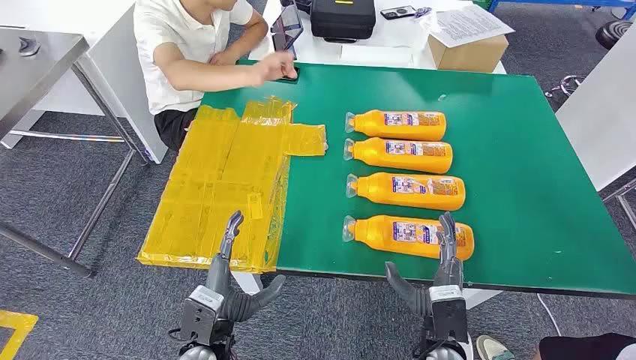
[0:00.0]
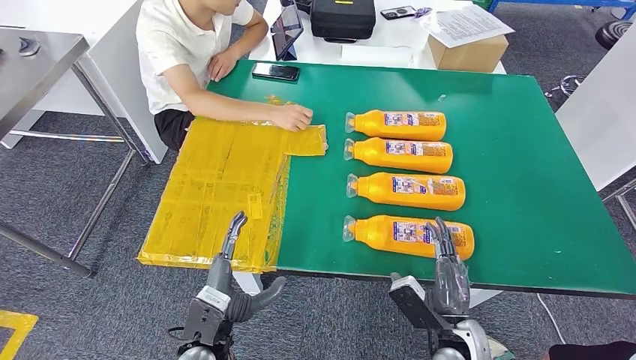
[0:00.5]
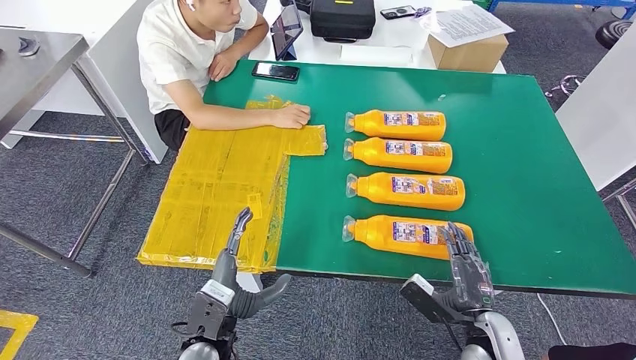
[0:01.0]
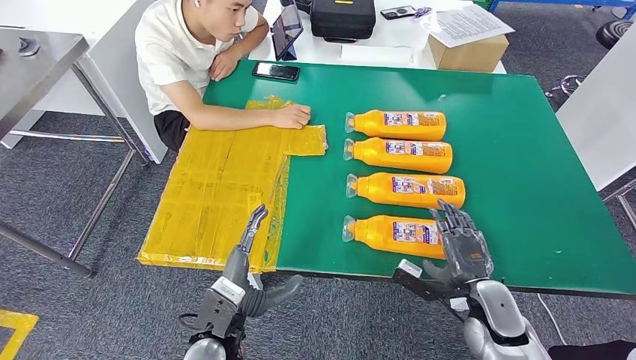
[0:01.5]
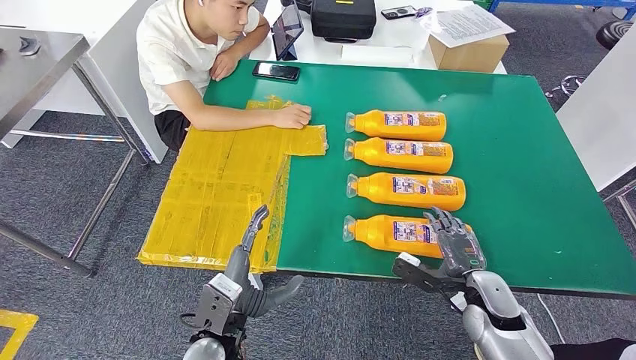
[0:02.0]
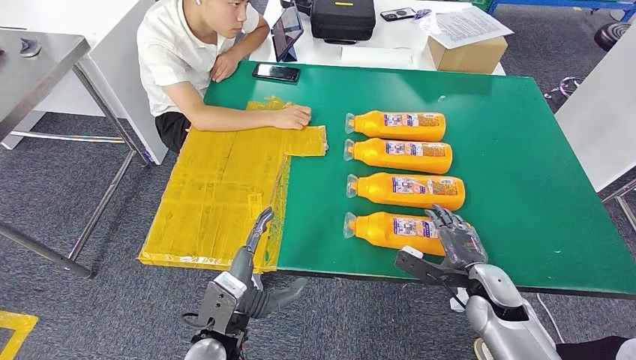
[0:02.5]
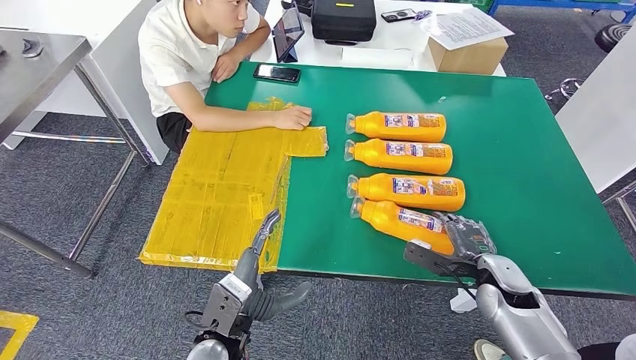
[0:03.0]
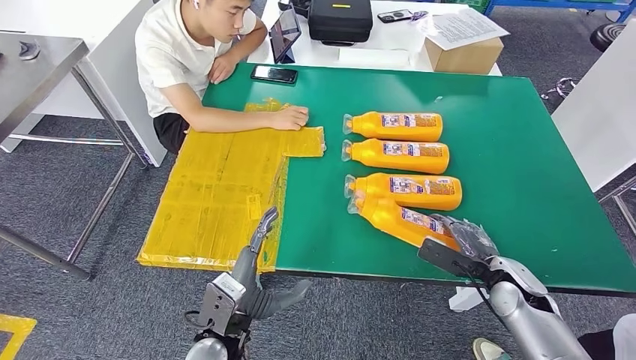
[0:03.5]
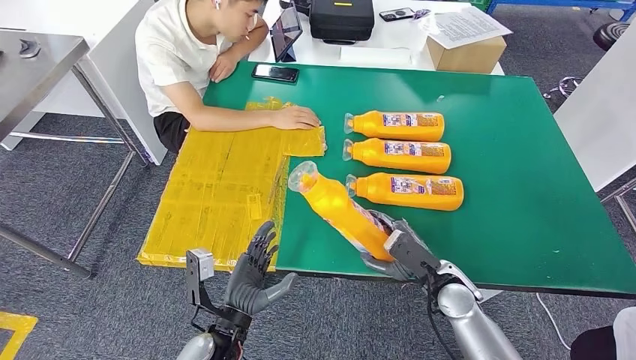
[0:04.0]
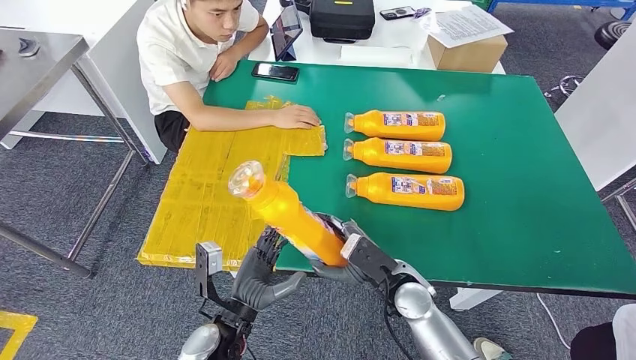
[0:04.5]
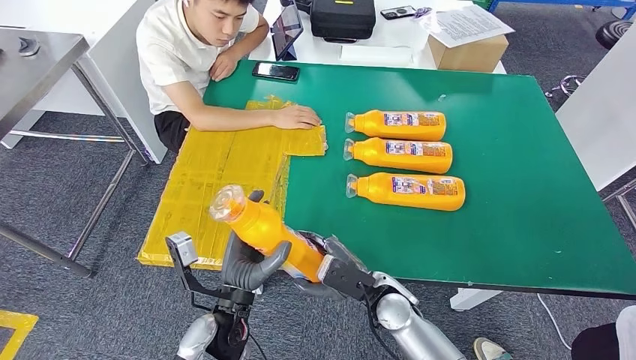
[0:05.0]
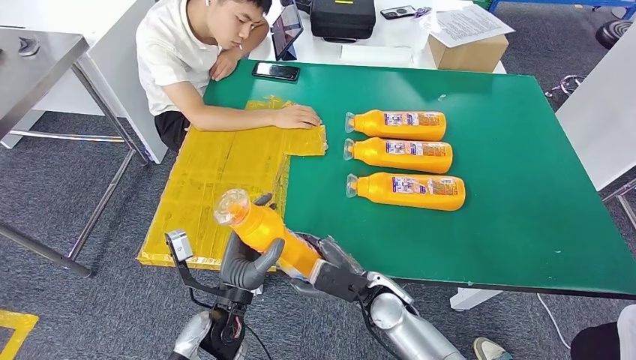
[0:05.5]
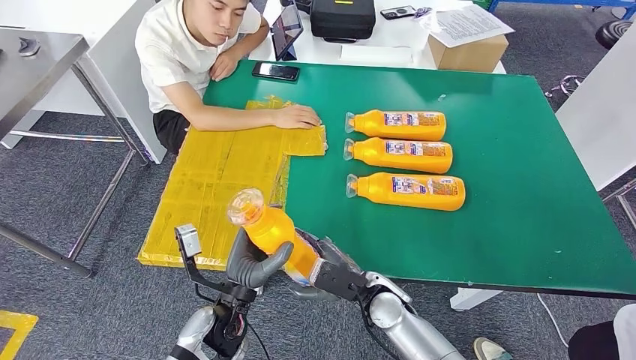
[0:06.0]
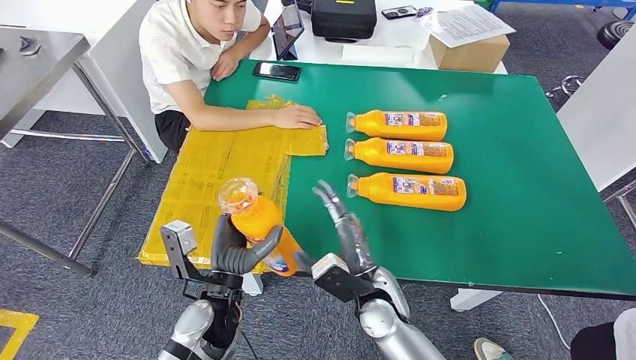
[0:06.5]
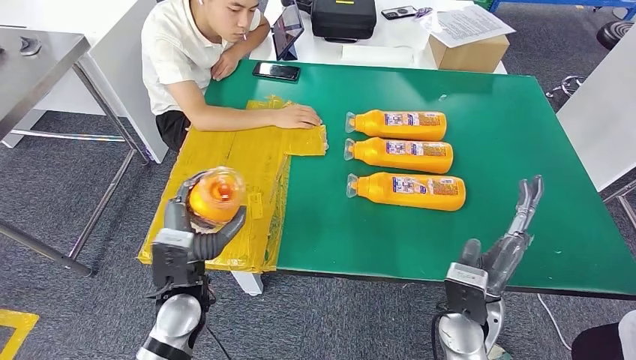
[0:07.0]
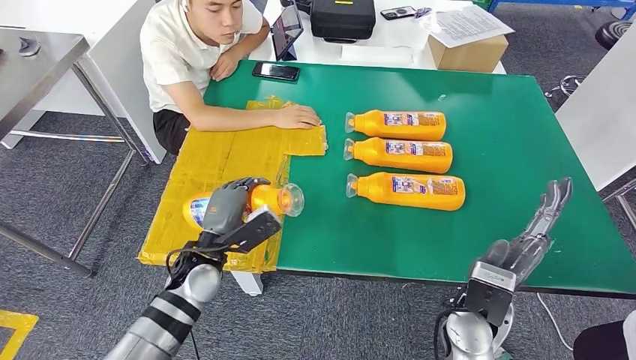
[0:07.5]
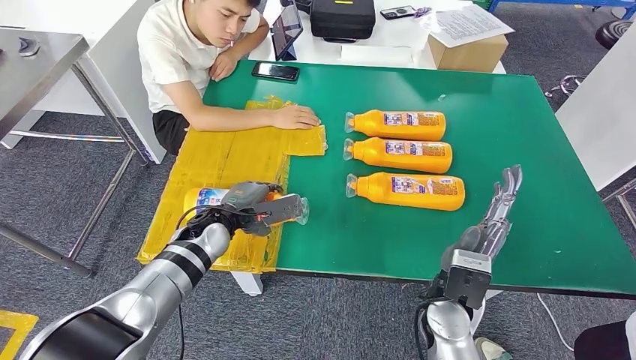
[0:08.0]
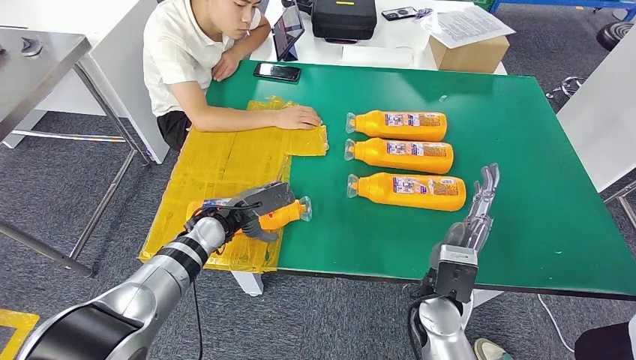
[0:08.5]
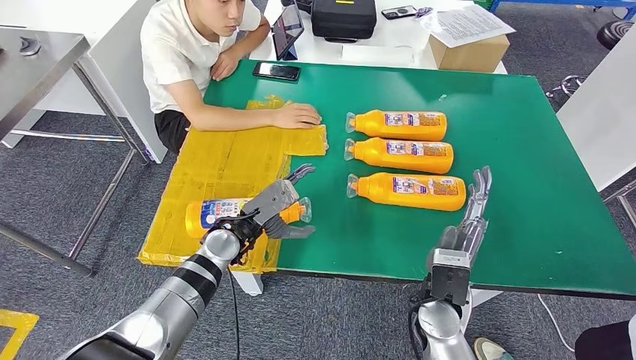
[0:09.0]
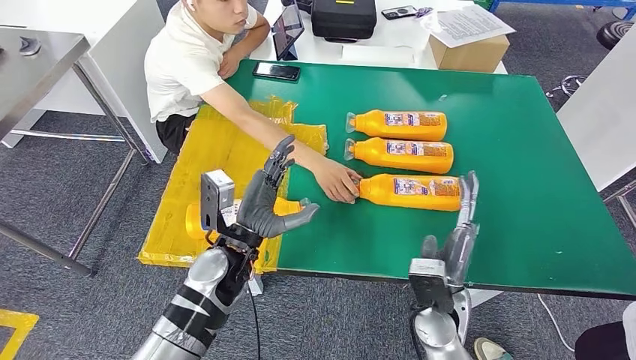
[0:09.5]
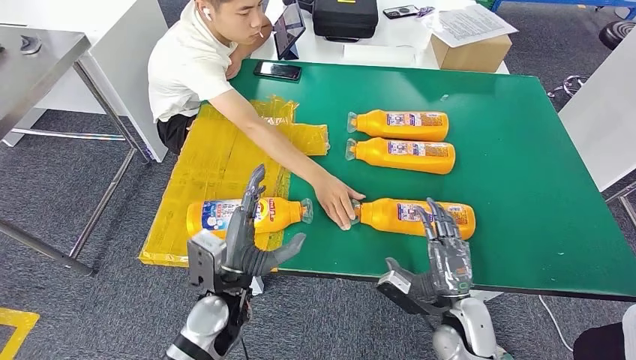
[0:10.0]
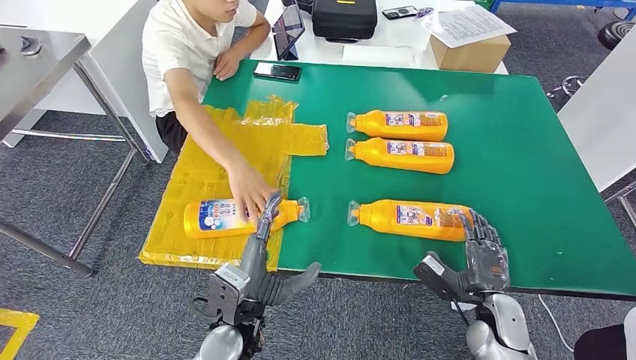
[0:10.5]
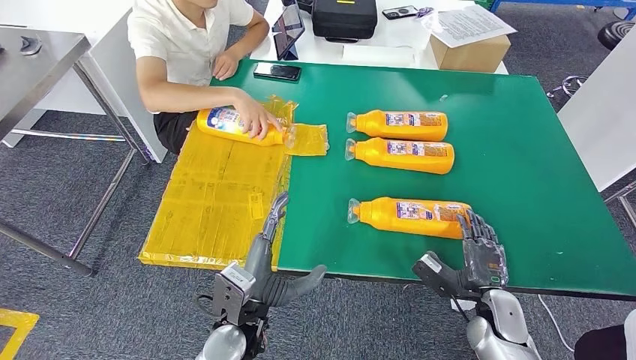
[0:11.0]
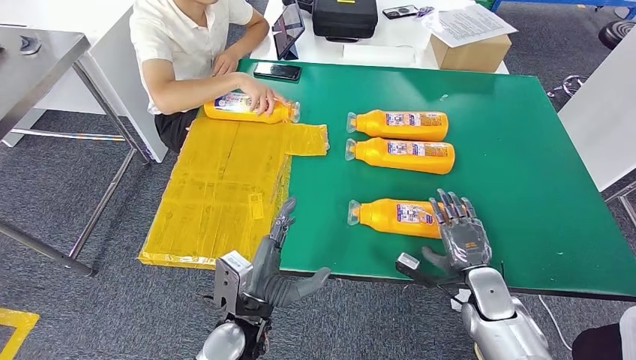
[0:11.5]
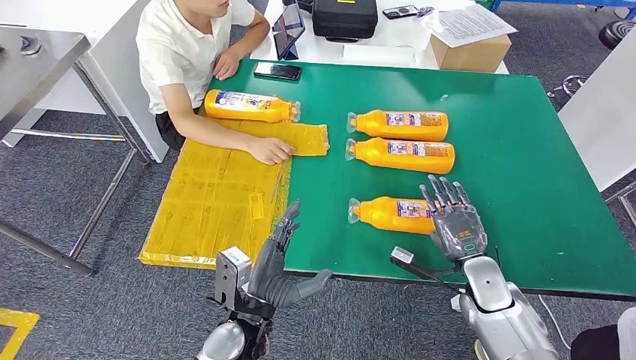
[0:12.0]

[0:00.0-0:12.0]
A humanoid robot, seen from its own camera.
Step, 0:00.0 to 0:05.5: Take the bottle from the table.
Step, 0:06.0 to 0:09.5: Flip the bottle to face forward.
0:02.0 to 0:04.0: The right hand shifts some 5 cm to the left.
0:04.0 to 0:06.0: The right hand goes approximately 15 cm to the left.
0:06.0 to 0:08.0: The right hand shifts approximately 10 cm to the right and upward. The left hand heads forward, covering some 15 cm.

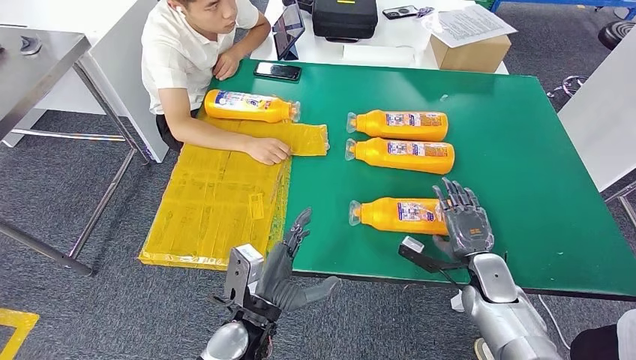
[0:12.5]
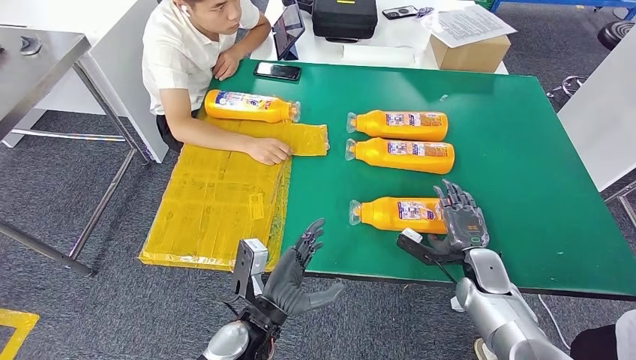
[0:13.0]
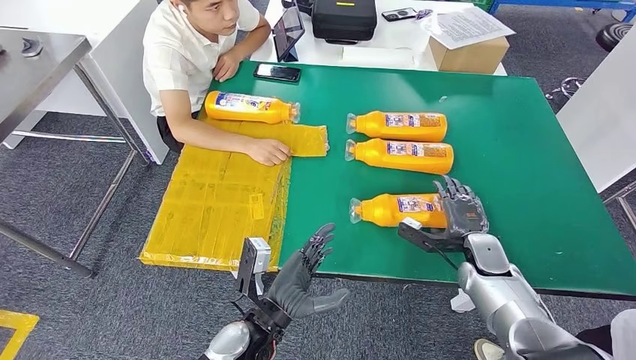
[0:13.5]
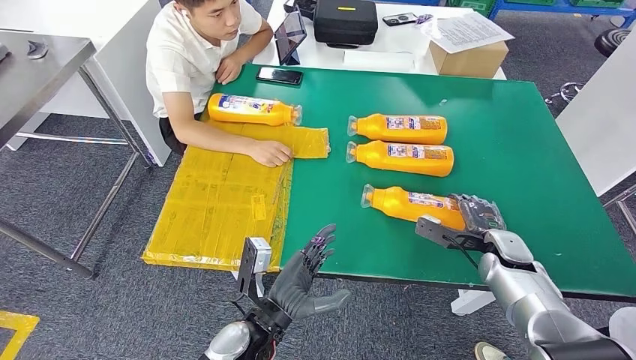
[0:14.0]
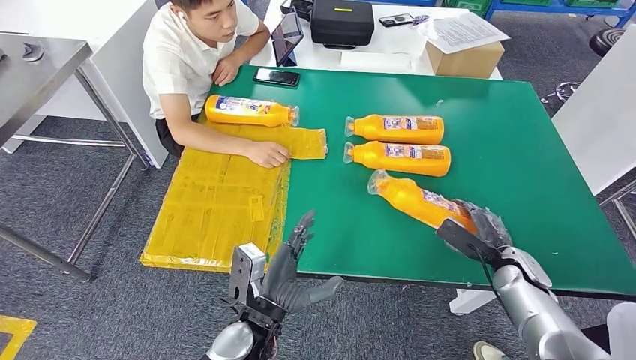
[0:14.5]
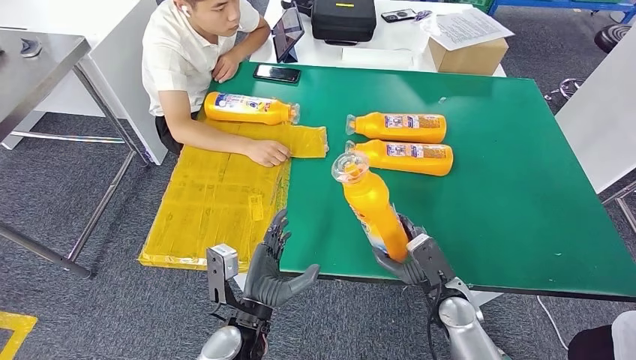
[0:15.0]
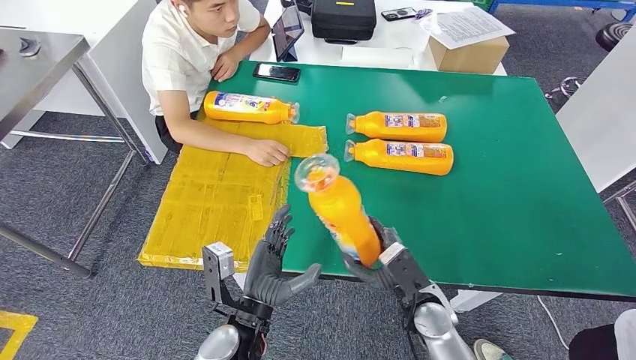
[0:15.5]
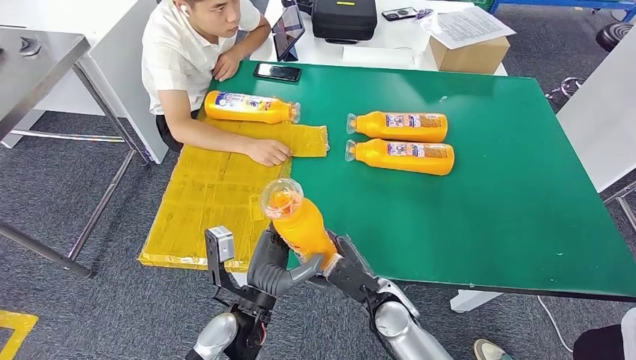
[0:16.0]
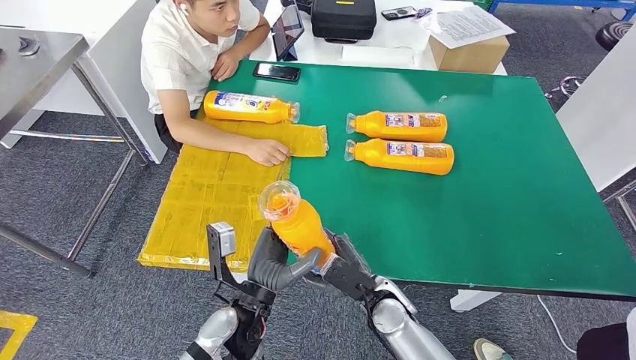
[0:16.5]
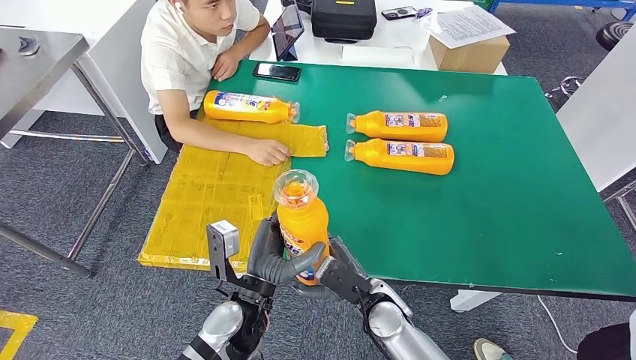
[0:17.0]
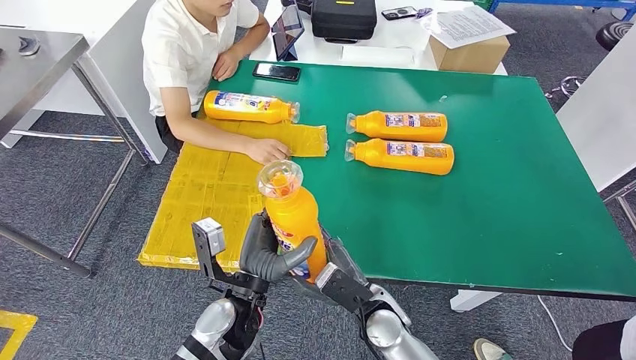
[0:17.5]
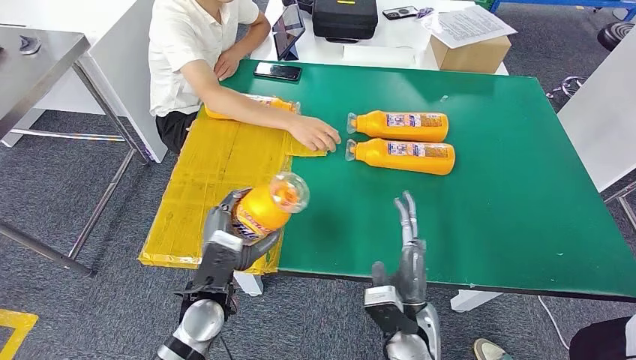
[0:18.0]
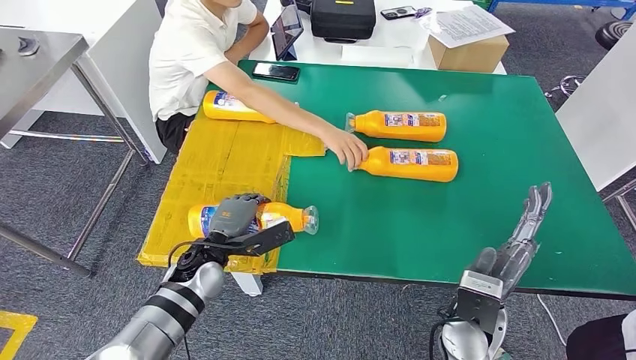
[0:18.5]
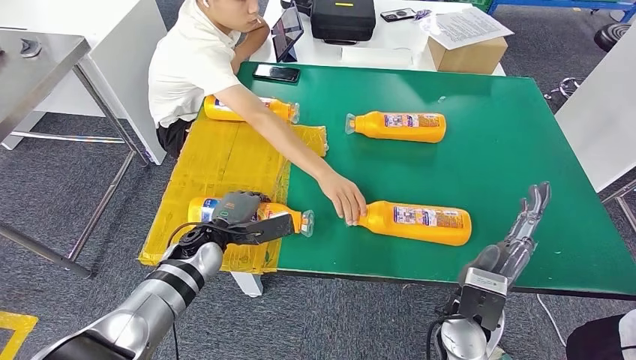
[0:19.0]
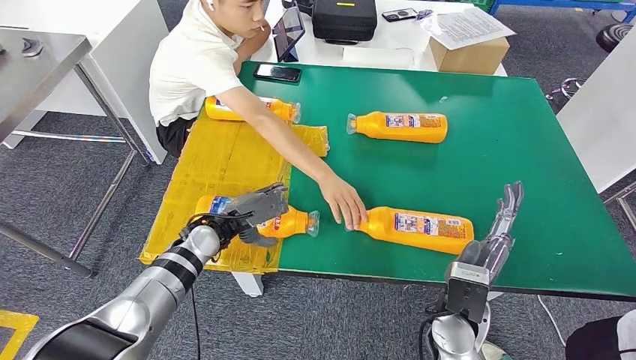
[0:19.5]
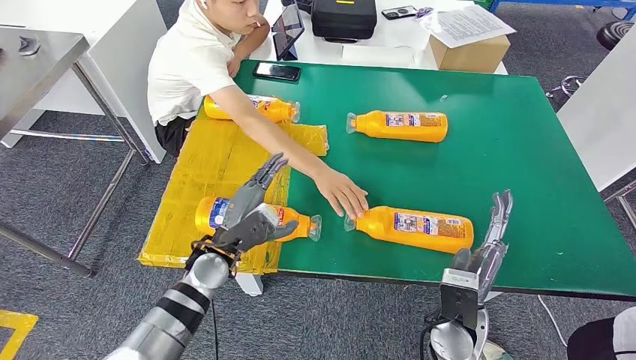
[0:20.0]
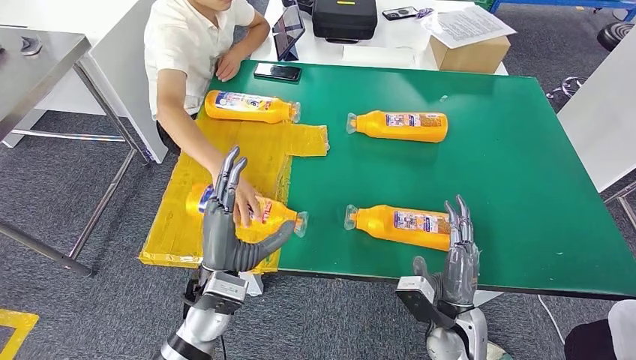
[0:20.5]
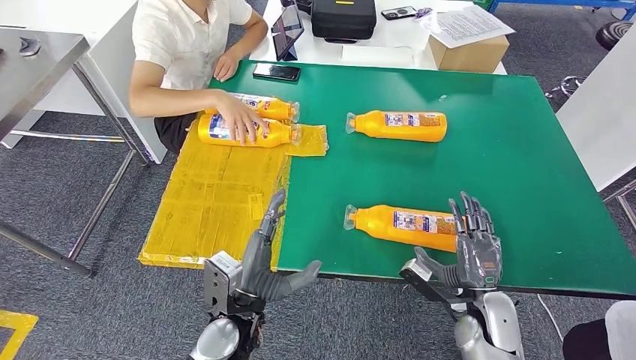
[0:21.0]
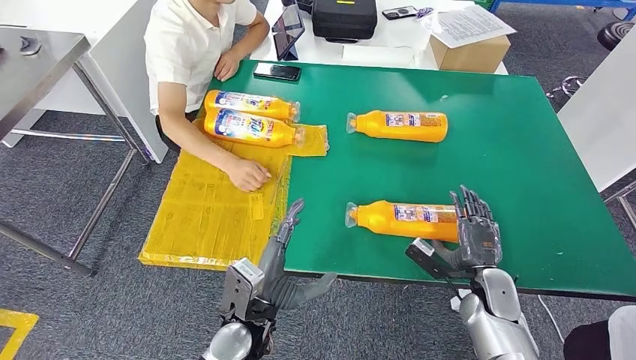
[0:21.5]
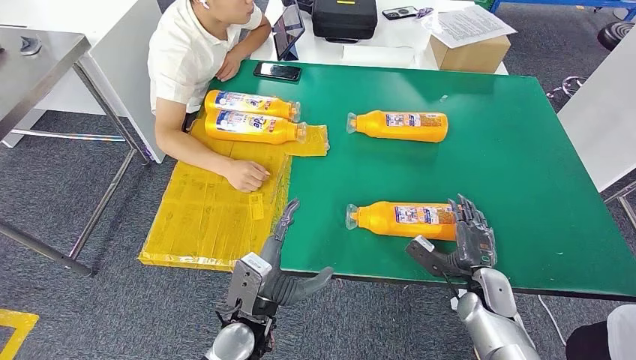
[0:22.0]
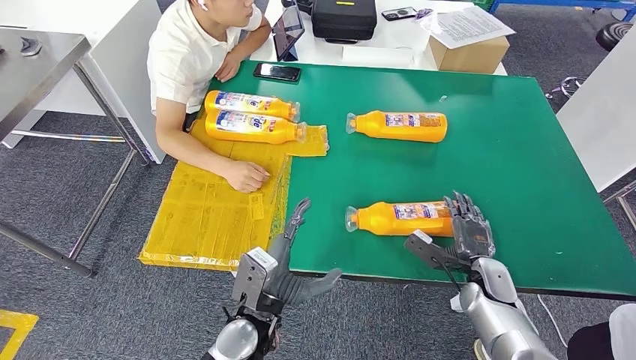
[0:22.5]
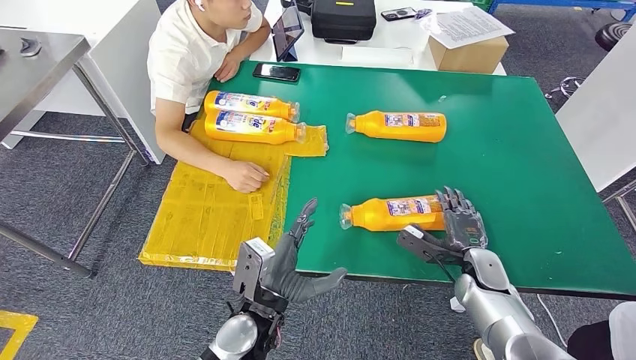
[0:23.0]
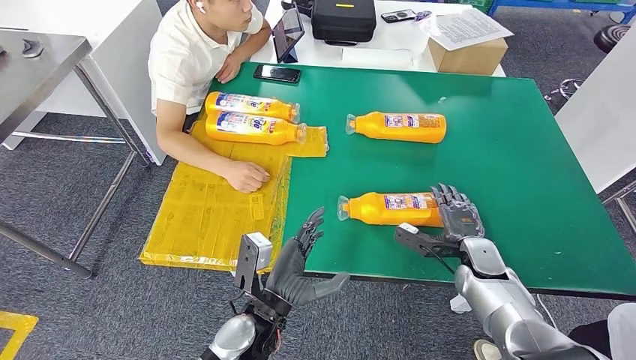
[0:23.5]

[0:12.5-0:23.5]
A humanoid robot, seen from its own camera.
Step, 0:12.5 to 0:14.5: Pick up the bottle from the table.
Step, 0:15.5 to 0:19.5: Flip the bottle to face forward.
0:16.0 to 0:18.0: The left hand travels to the left by approximately 5 cm; the right hand ends up roughly 5 cm from where it was.
0:21.5 to 0:23.5: The right hand travels forward by some 5 cm.
